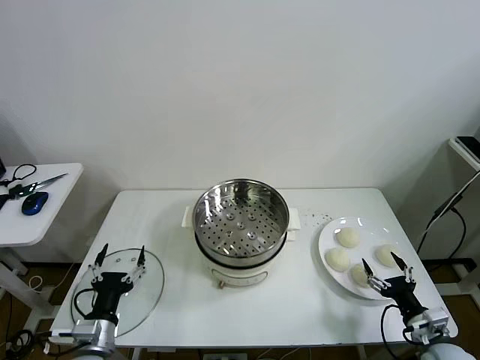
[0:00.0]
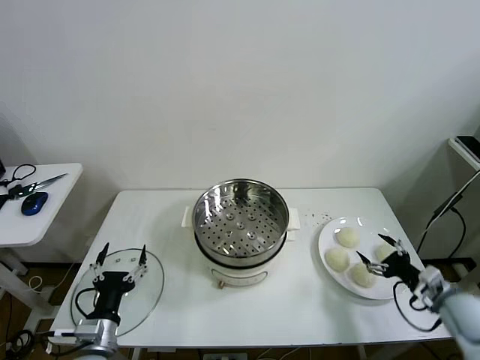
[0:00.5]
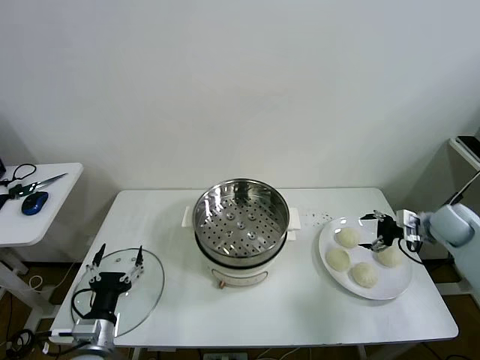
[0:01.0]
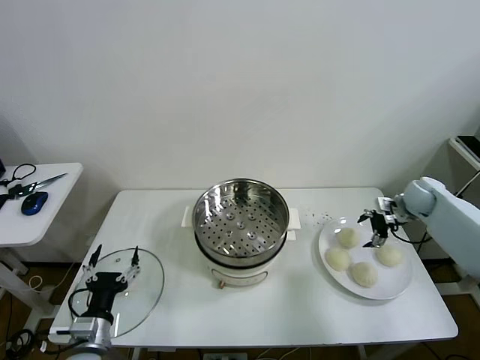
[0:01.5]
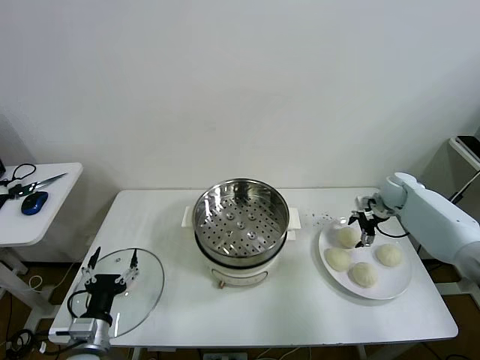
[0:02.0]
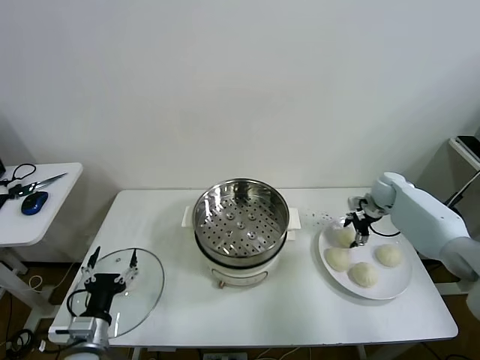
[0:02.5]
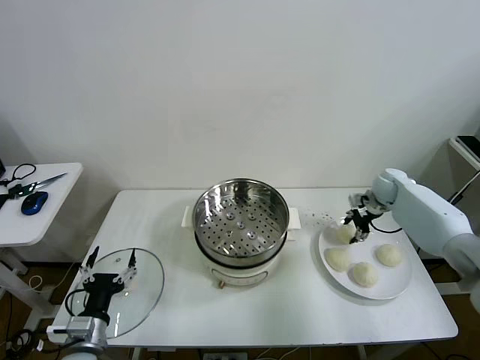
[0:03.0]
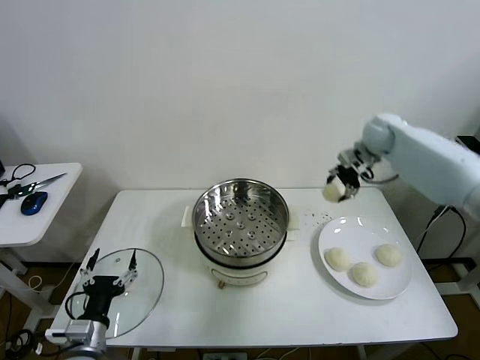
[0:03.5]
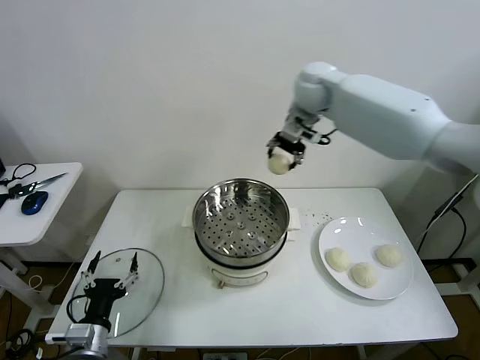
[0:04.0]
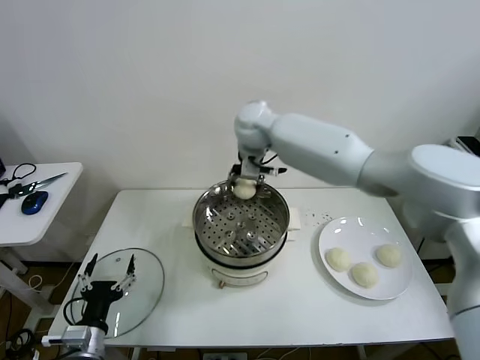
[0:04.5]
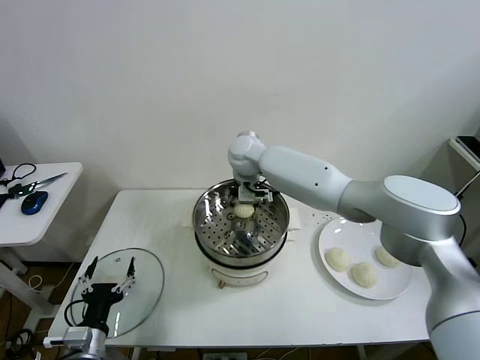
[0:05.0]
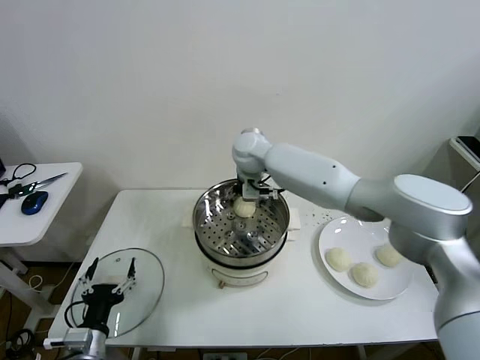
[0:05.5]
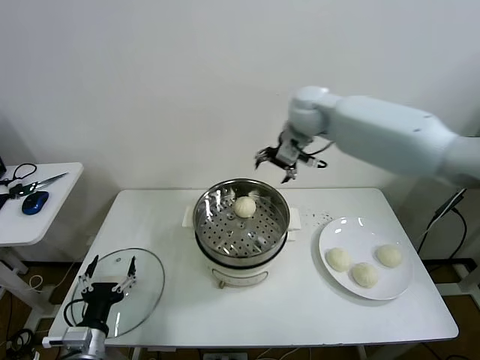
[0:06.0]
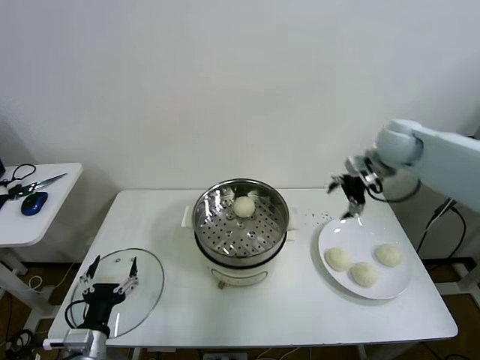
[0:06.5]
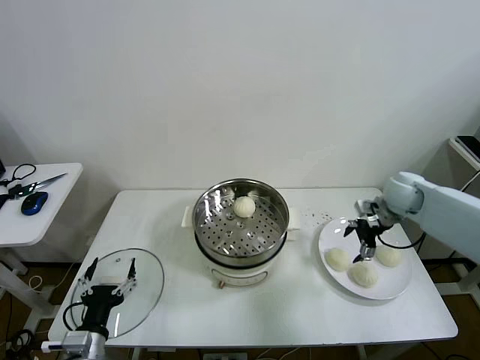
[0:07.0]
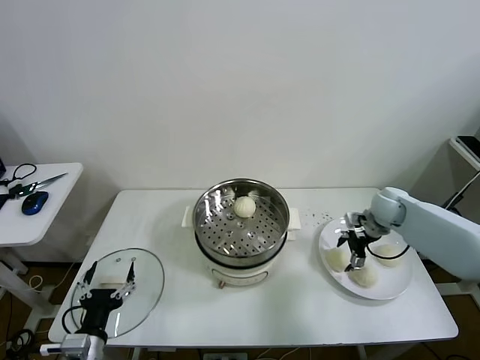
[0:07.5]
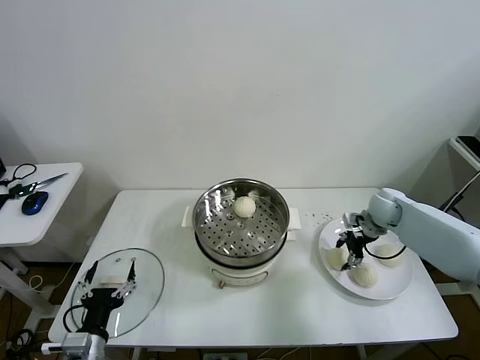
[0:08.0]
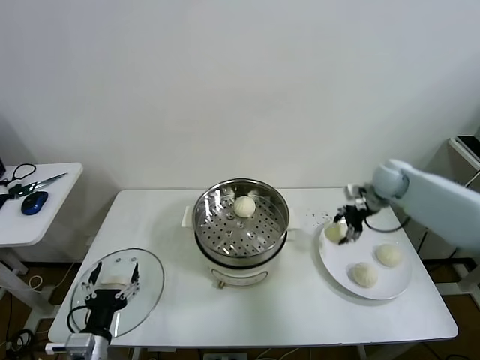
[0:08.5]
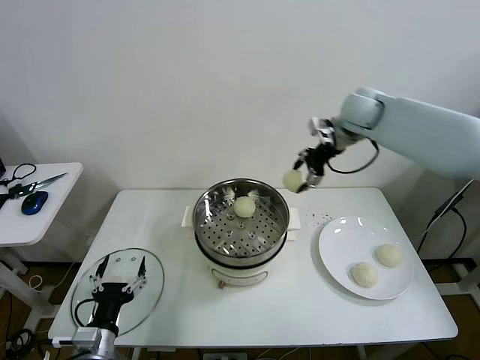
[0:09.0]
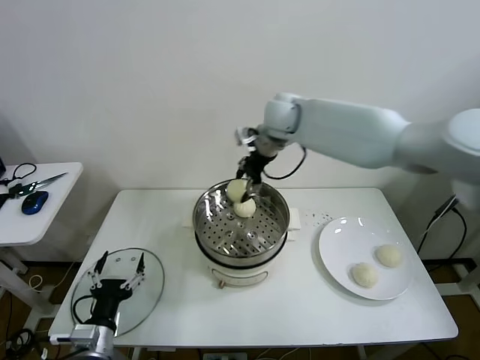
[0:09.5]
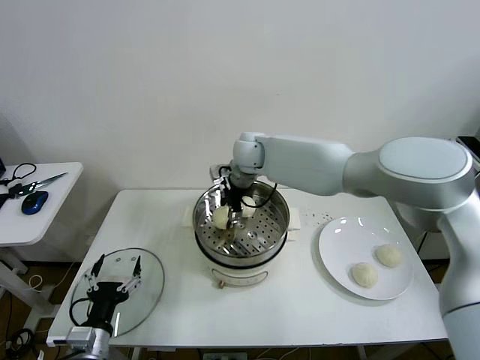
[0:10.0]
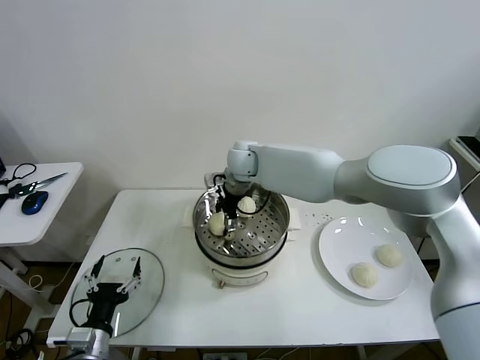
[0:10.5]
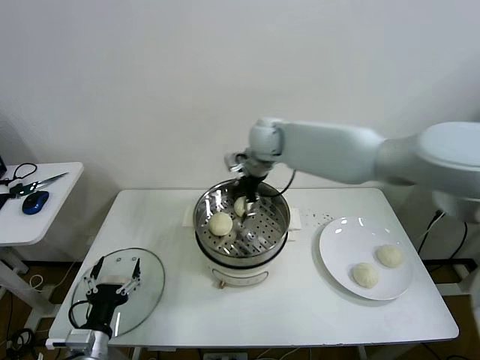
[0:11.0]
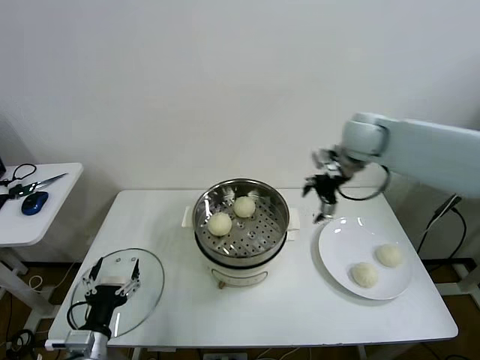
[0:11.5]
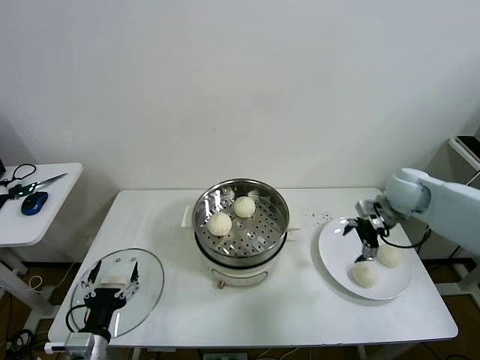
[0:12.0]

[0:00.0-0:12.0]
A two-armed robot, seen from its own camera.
Task of the whole recording: take steamed baozi put them in steamer then cover it.
Step, 0:00.0 to 0:02.5: Grasp the baozi in the plate with right gripper.
Step, 0:03.0 to 0:05.5: Place the baozi on the steamer with right gripper.
Step, 0:06.0 to 0:08.0: Grasp the baozi in the plate with right gripper.
Step, 0:08.5 to 0:10.5: Place the baozi on the steamer with right gripper.
0:02.0 to 0:04.0: The right gripper is displaced to the left and upward by roughly 40 cm, and closes its fingers.
0:04.0 to 0:06.0: The right gripper travels to the right by roughly 10 cm, and opens its fingers.
0:06.0 to 0:08.0: The right gripper moves downward and to the right, approximately 30 cm, and closes up.
0:08.0 to 0:10.0: The right gripper is displaced to the left by approximately 35 cm.
0:10.0 to 0:12.0: The right gripper travels to the right by some 35 cm, and opens.

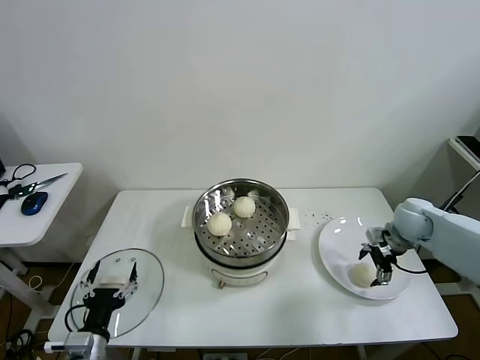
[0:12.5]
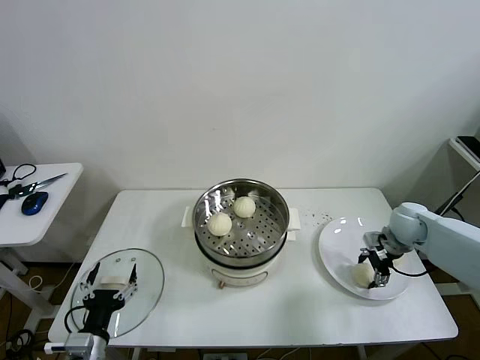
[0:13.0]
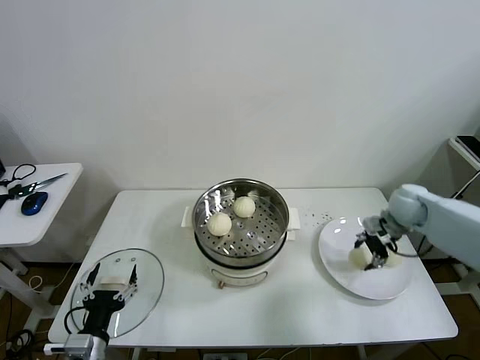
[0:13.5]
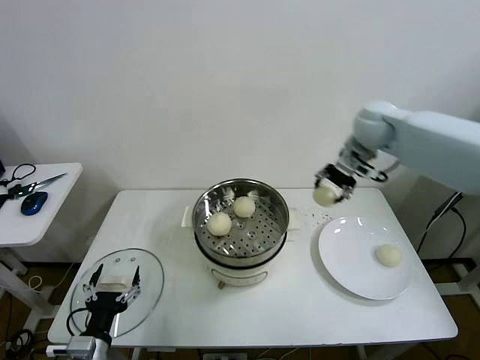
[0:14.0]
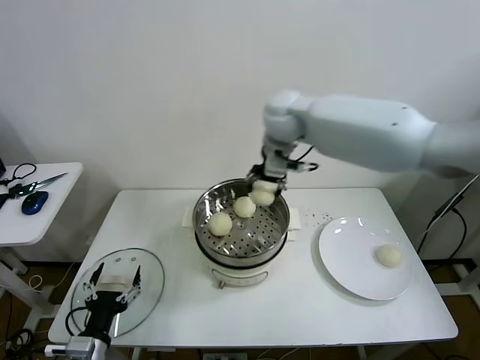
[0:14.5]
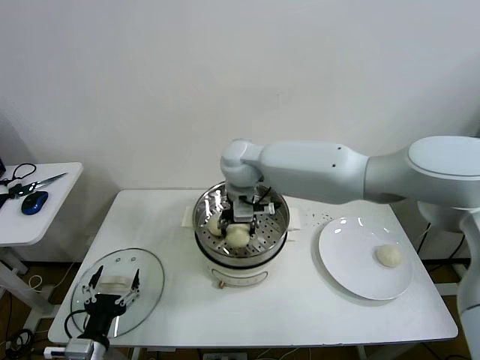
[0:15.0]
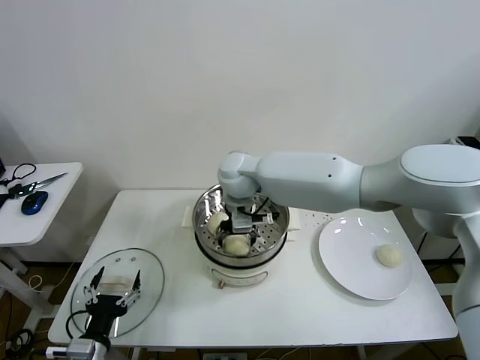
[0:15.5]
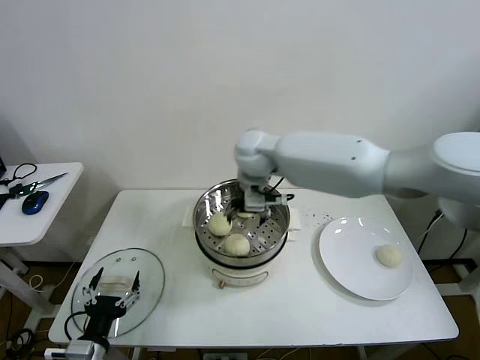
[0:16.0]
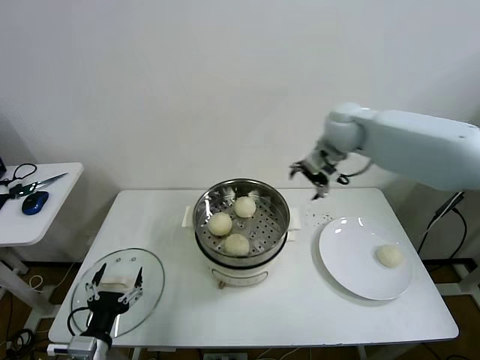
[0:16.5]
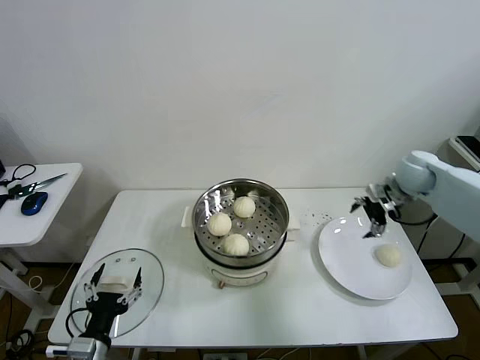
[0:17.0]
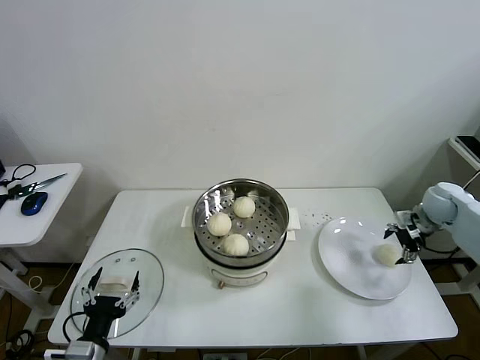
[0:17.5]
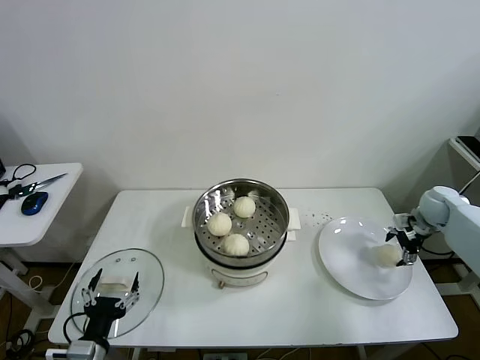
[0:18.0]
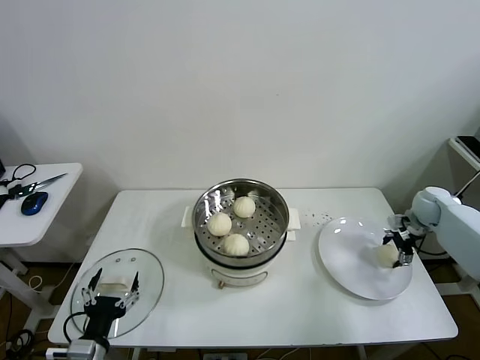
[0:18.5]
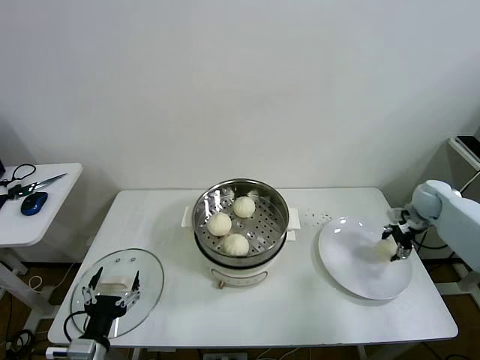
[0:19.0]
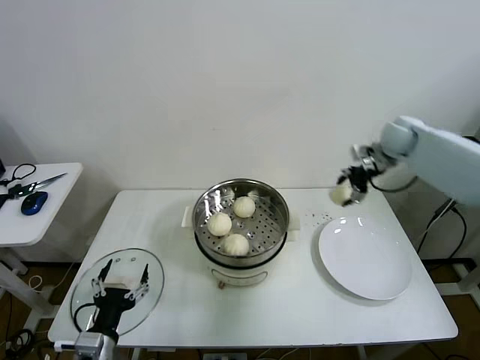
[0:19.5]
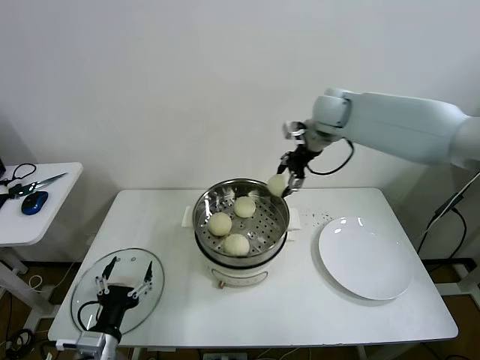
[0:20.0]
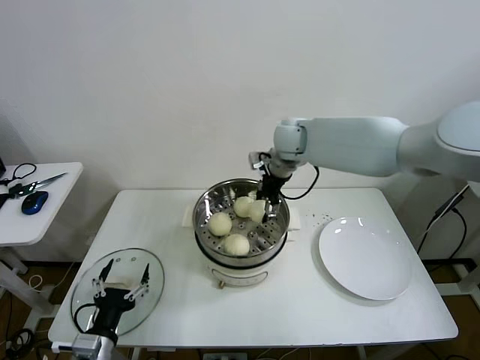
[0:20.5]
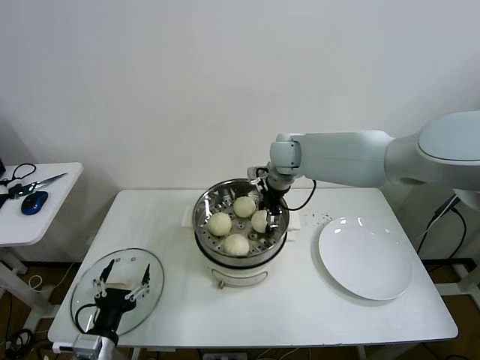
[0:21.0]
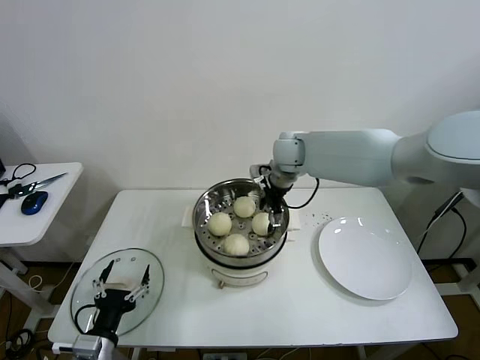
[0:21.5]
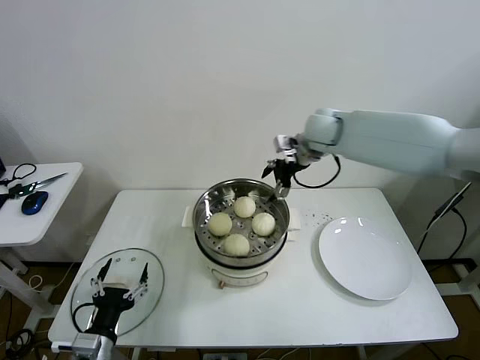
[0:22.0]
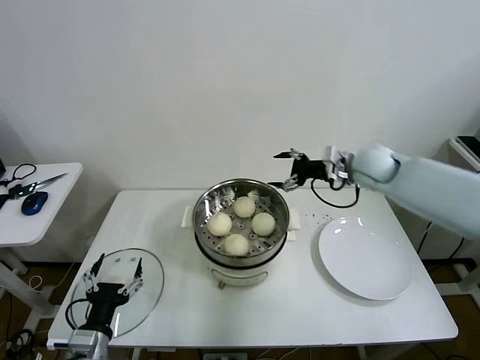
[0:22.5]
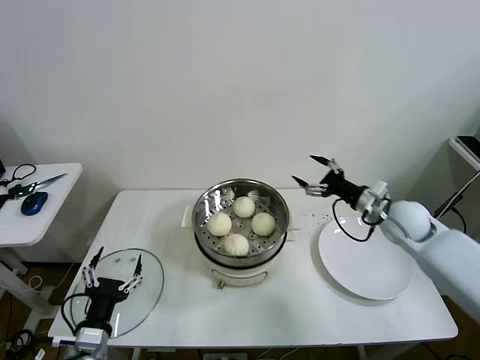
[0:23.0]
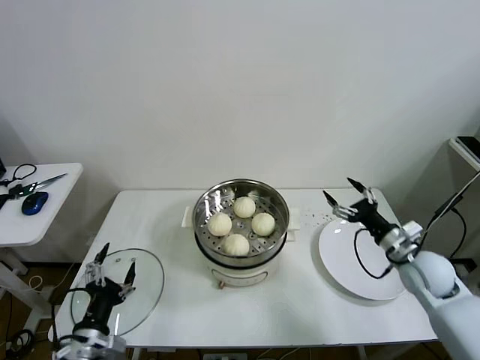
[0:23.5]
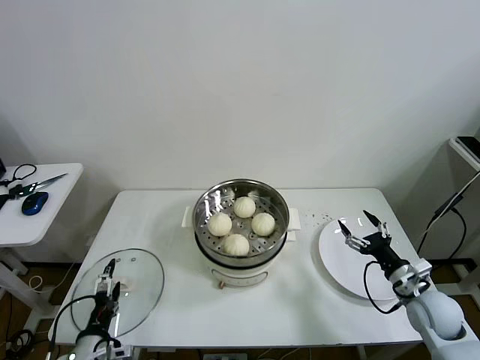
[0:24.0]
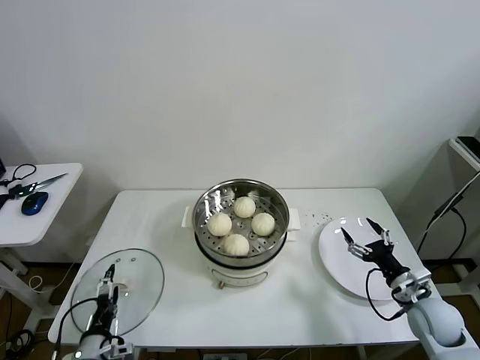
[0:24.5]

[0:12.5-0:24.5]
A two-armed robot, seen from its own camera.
Task of the whole recording: take steamed baozi put them in steamer then cover it.
Step, 0:13.5 to 0:15.5: Place the baozi on the steamer with right gripper.
Step, 0:16.0 to 0:18.5: Grasp the baozi in the plate with right gripper.
Step, 0:19.0 to 0:21.0: Place the baozi on the steamer with right gripper.
0:12.5 to 0:14.5: The right gripper travels to the left and upward by approximately 40 cm, and closes up.
0:14.5 to 0:16.5: The right gripper is displaced to the right by roughly 15 cm, and opens its fingers.
0:16.5 to 0:18.5: The right gripper travels to the right and downward by about 35 cm, and closes.
0:18.5 to 0:20.5: The right gripper shifts about 40 cm to the left and upward.
0:20.5 to 0:22.5: The right gripper travels to the right by roughly 20 cm, and opens.
0:22.5 to 0:24.5: The left gripper travels downward by roughly 10 cm. Meanwhile the right gripper is displaced backward, downward and to the right by some 35 cm.

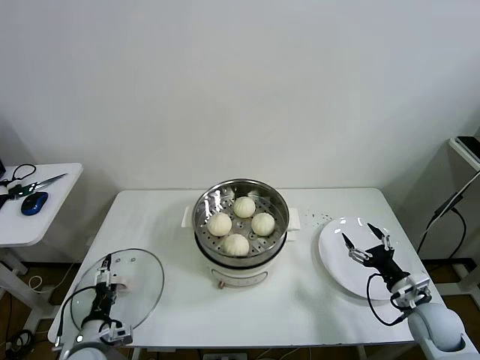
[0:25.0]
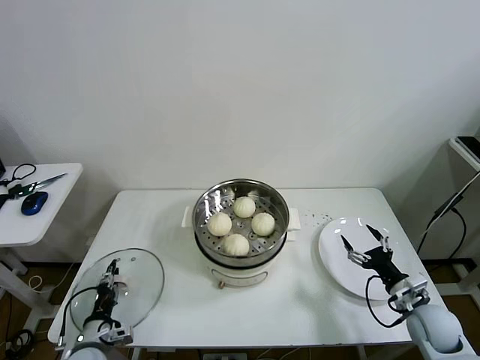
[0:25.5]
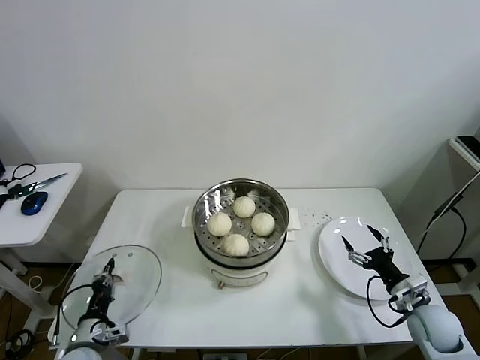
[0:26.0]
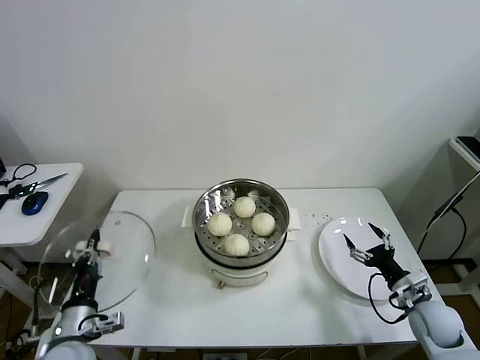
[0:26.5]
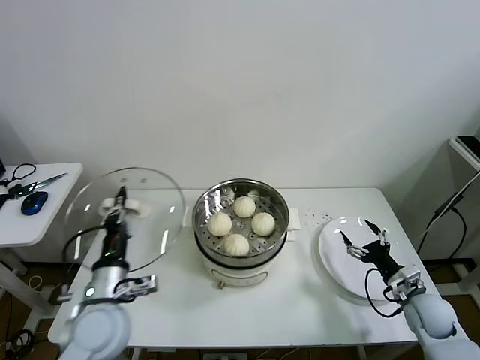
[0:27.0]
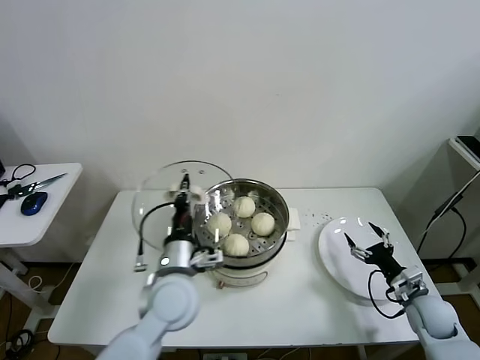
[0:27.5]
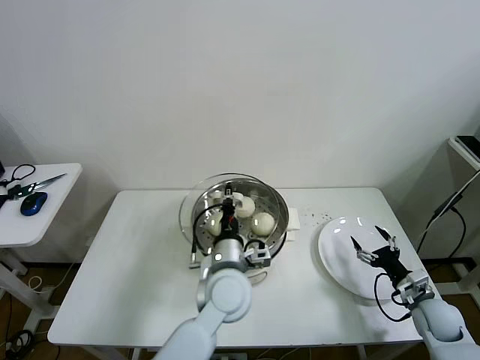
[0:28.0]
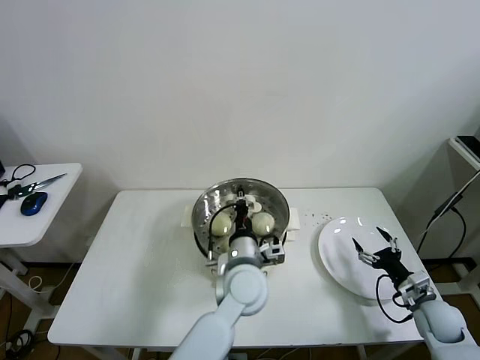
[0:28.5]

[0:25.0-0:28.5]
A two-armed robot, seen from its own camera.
Task of the whole recording: take steamed baozi put them in steamer then cover it.
0:25.0 to 0:27.0: The left gripper is displaced upward and to the right by approximately 20 cm, and closes up.
0:27.0 to 0:28.5: The left gripper travels to the right by roughly 25 cm.
